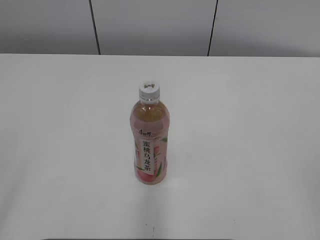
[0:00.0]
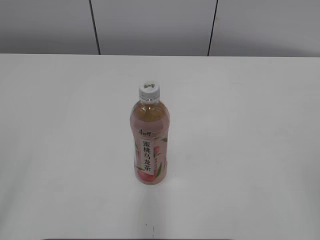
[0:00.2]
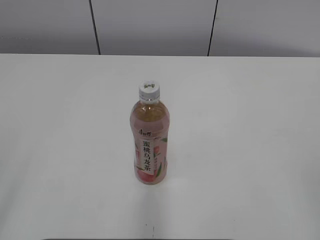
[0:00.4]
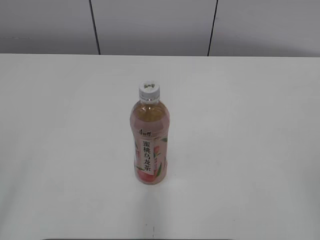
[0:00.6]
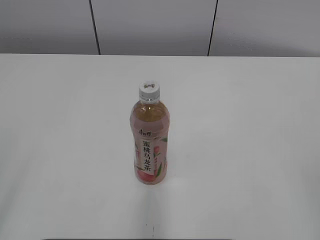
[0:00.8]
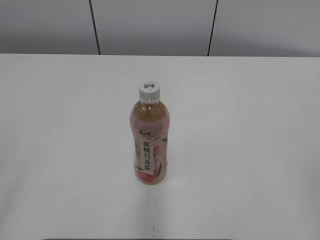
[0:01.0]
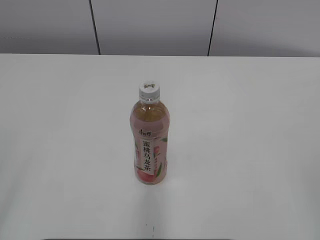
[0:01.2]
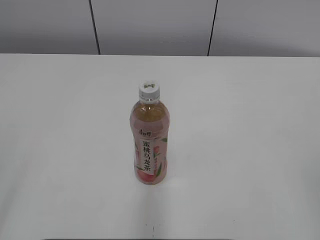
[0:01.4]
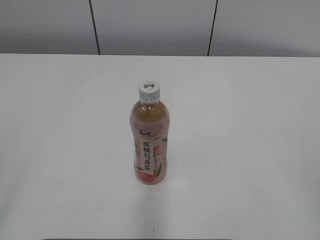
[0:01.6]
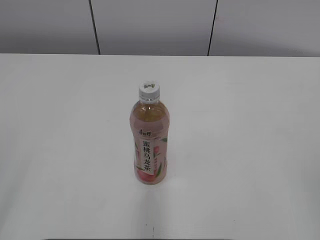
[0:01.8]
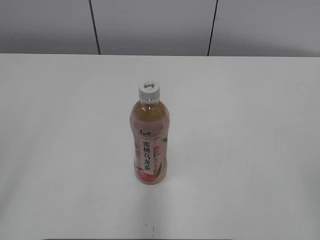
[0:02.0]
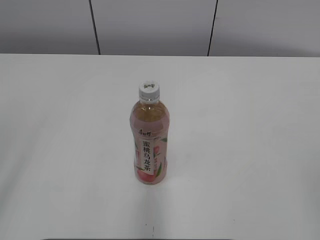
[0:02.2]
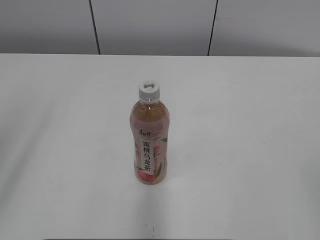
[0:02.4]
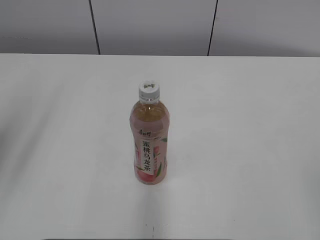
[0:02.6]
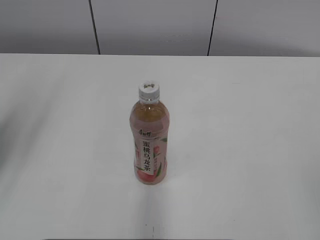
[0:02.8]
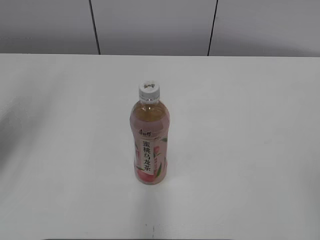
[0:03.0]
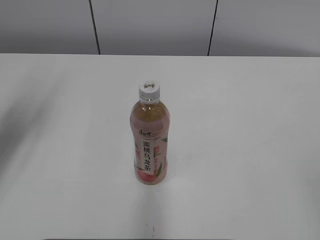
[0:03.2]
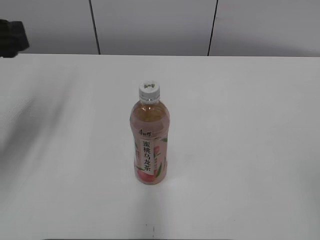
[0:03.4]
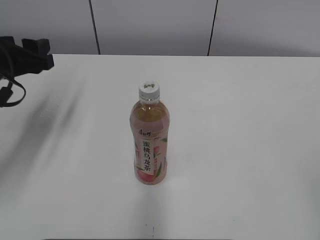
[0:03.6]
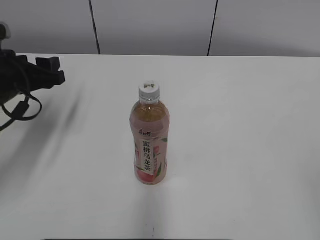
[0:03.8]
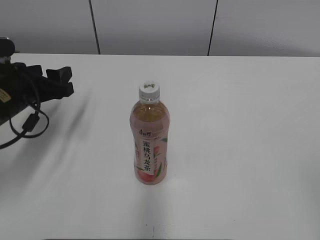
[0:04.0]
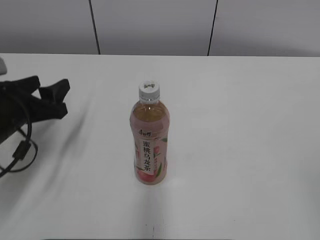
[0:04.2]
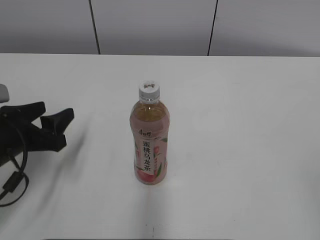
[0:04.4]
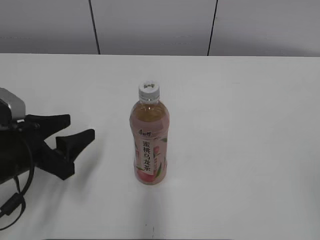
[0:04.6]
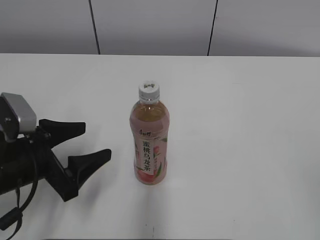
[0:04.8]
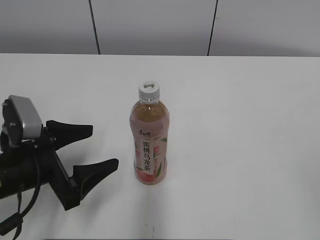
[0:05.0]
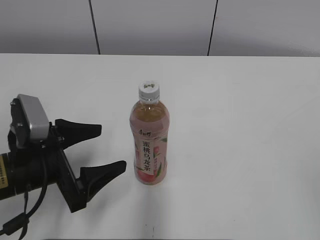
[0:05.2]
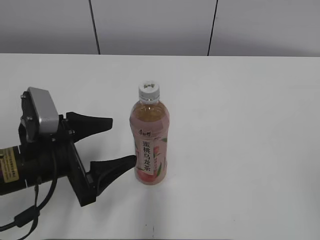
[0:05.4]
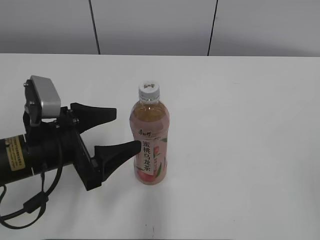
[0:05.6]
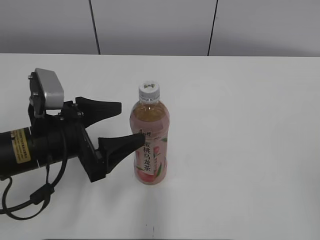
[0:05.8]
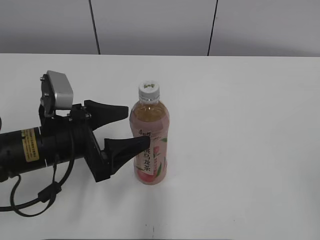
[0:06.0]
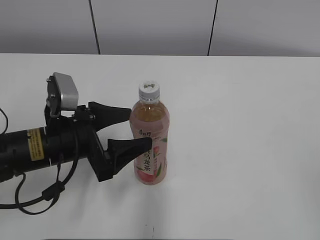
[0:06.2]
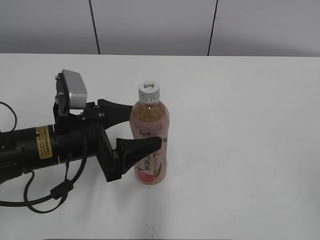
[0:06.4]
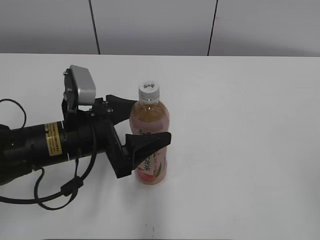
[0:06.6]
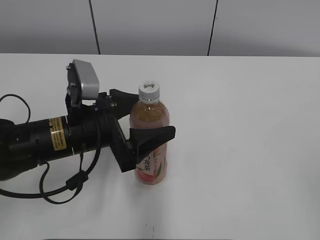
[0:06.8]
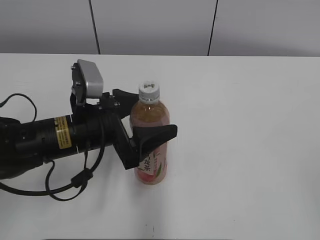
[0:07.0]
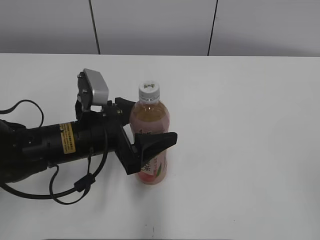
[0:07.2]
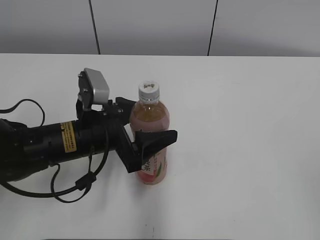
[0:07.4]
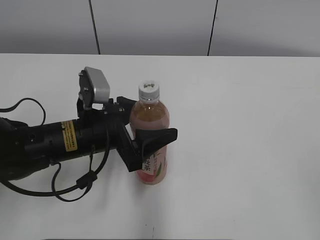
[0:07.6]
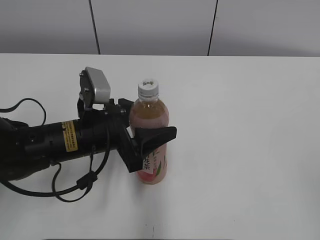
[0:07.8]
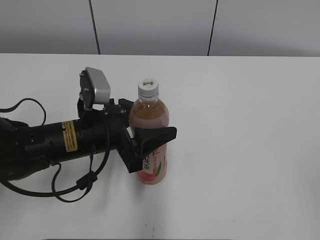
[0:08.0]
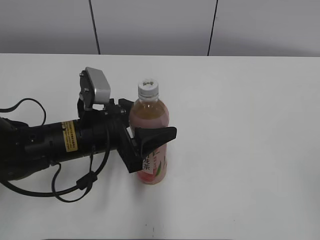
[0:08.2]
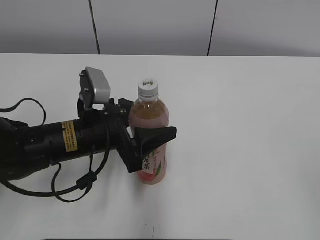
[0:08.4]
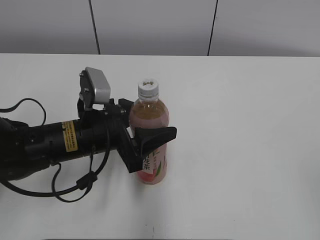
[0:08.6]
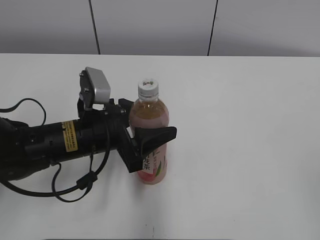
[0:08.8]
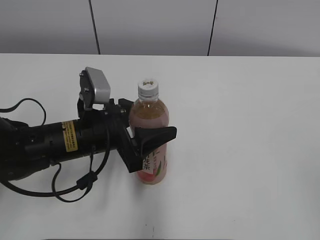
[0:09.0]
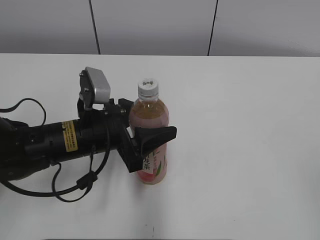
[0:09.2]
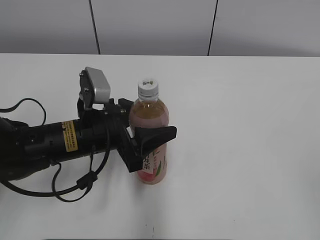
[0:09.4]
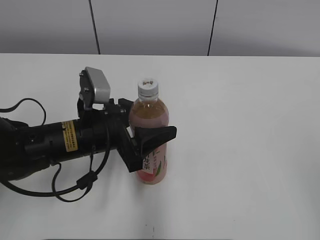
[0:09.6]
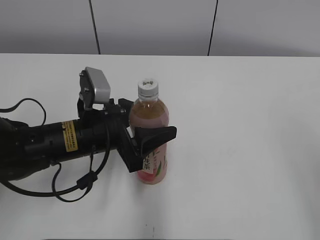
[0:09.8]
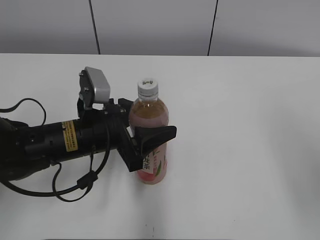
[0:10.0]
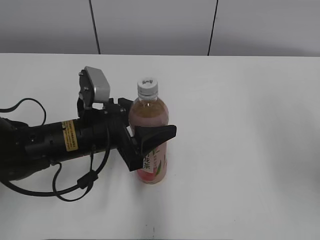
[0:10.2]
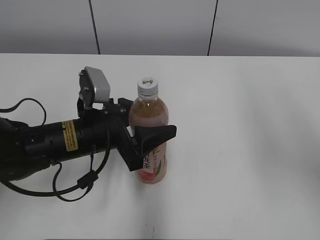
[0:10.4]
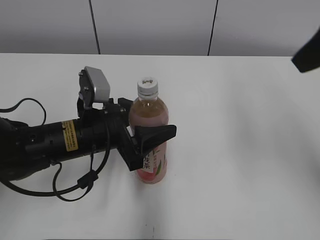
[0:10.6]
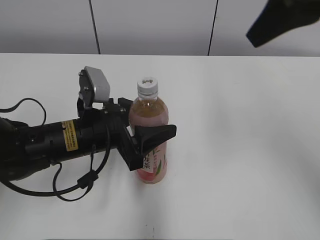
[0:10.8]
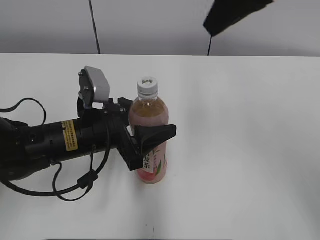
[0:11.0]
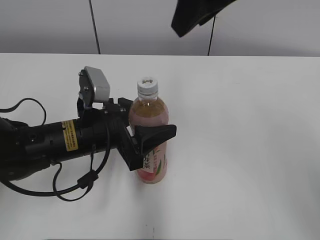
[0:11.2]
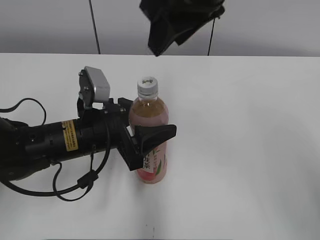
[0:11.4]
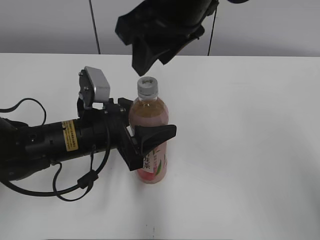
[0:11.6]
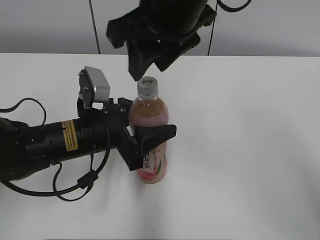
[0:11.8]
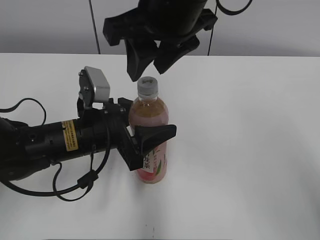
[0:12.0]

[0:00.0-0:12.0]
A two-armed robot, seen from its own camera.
Step, 0:00.0 to 0:07.6: Grab the Peach Oolong Tea with the left hand.
0:01.6 to 0:03.0: The left gripper shifts about 25 cm forward.
0:03.0 to 0:04.4: The left gripper shifts roughly 15 cm downward.
0:04.4 to 0:06.0: The left gripper travels to the right by approximately 10 cm, and opens its fingers.
0:06.0 to 0:07.6: The left gripper shifts by some 5 cm, and closes up.
0:07.6 to 0:09.0: The left gripper closes up.
0:09.0 to 0:10.4: The right gripper travels forward and upward by roughly 20 cm, and closes.
0:10.4 to 0:12.0: The right gripper heads to the left, covering some 25 cm.

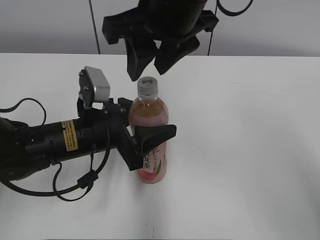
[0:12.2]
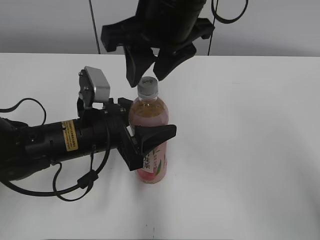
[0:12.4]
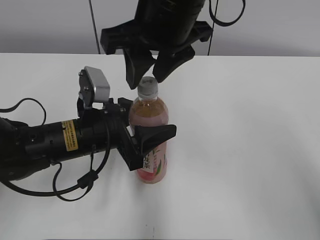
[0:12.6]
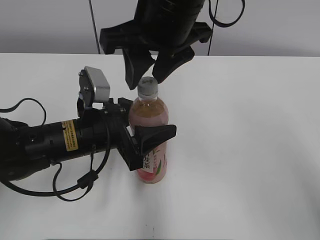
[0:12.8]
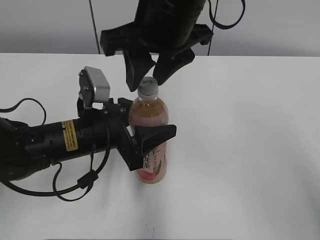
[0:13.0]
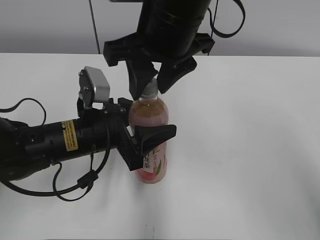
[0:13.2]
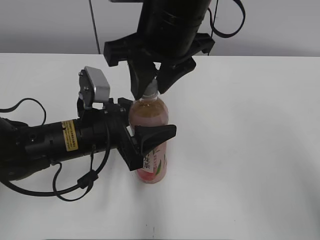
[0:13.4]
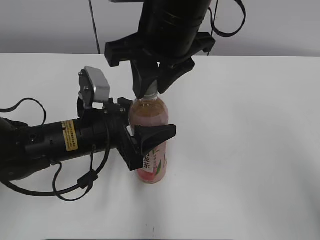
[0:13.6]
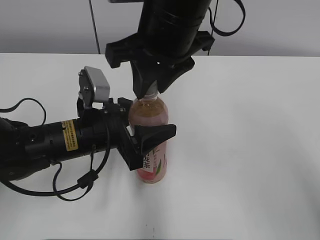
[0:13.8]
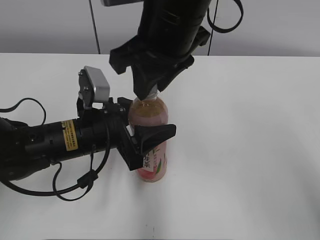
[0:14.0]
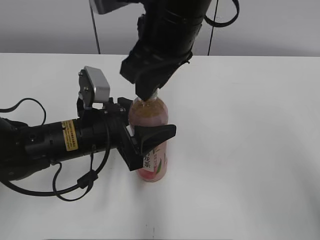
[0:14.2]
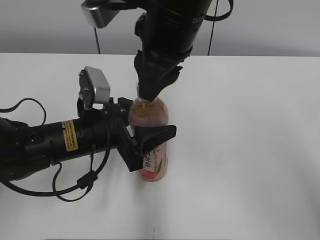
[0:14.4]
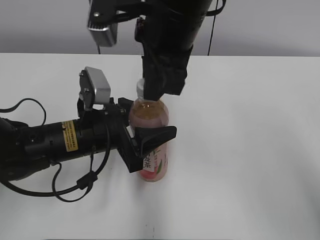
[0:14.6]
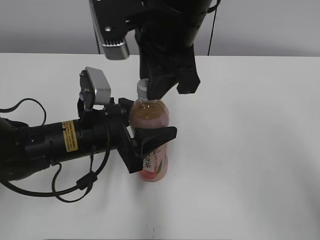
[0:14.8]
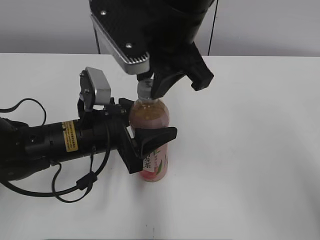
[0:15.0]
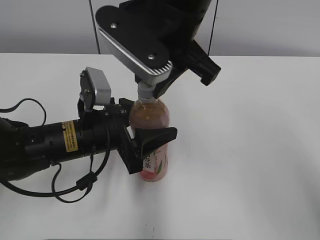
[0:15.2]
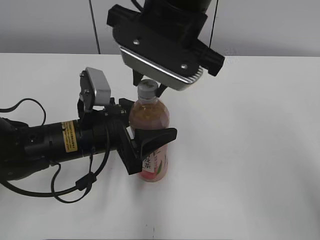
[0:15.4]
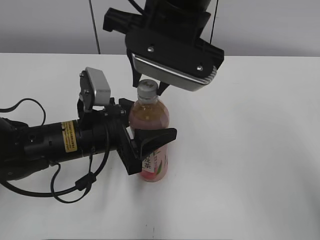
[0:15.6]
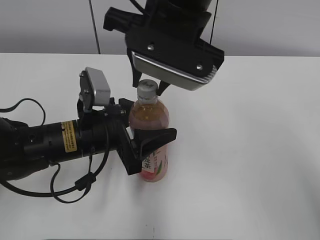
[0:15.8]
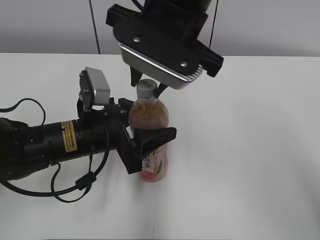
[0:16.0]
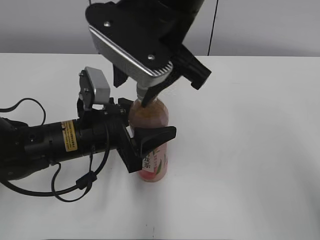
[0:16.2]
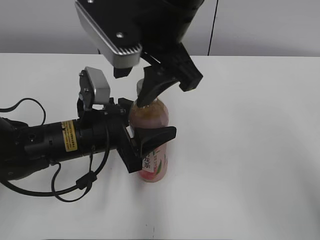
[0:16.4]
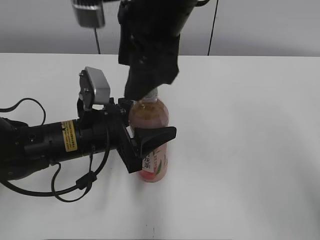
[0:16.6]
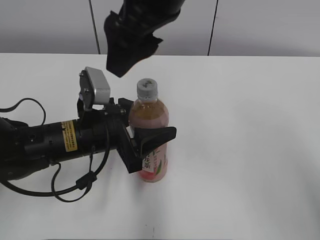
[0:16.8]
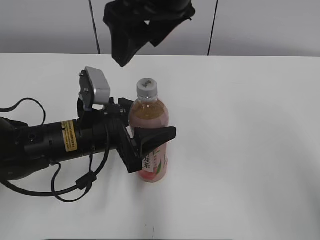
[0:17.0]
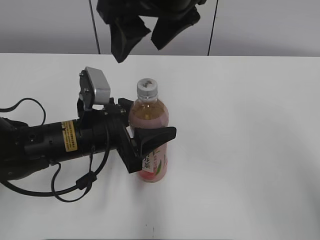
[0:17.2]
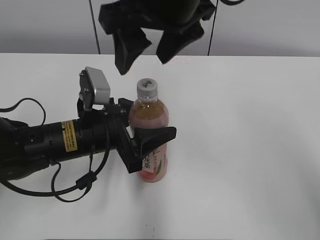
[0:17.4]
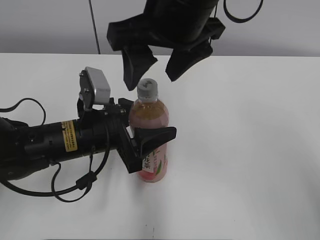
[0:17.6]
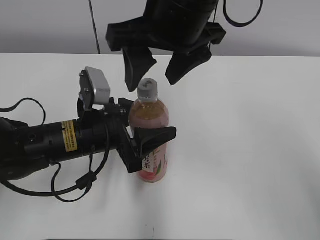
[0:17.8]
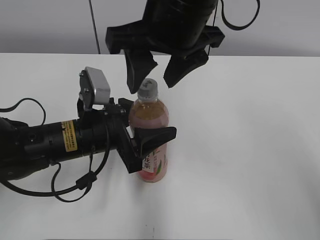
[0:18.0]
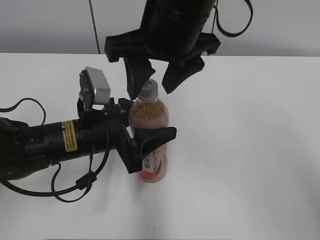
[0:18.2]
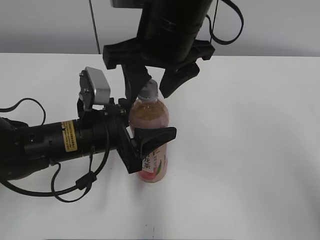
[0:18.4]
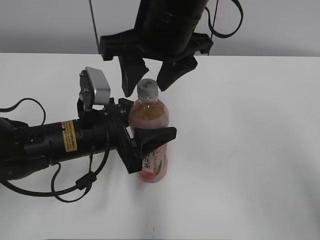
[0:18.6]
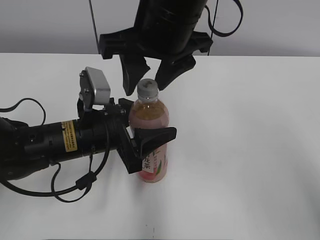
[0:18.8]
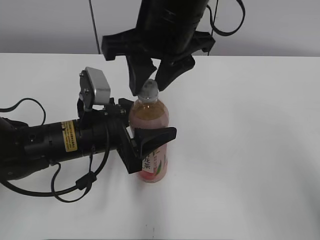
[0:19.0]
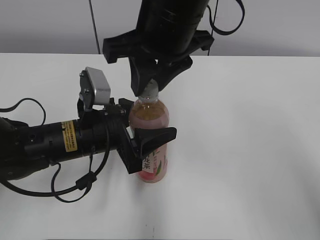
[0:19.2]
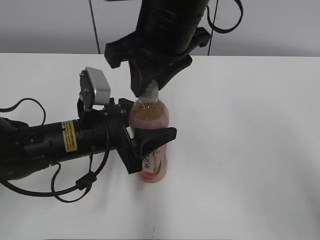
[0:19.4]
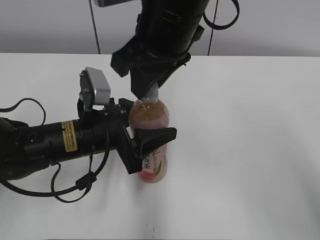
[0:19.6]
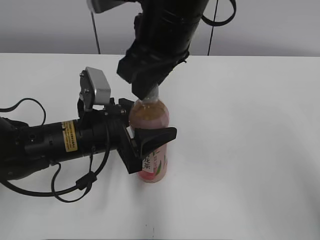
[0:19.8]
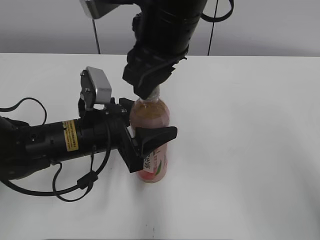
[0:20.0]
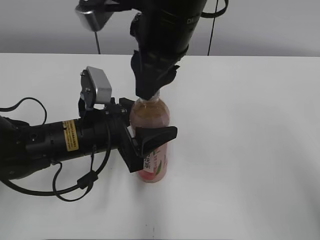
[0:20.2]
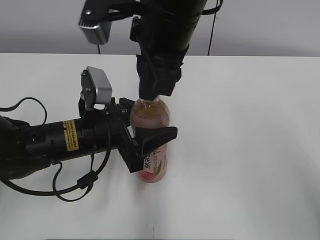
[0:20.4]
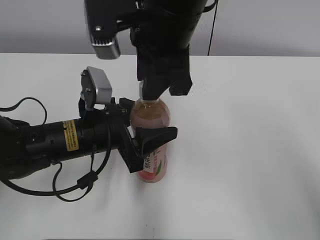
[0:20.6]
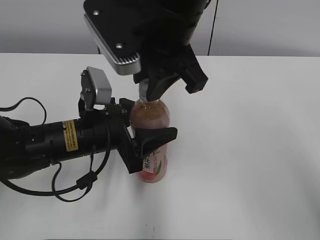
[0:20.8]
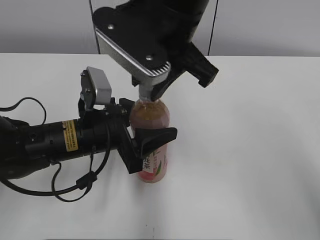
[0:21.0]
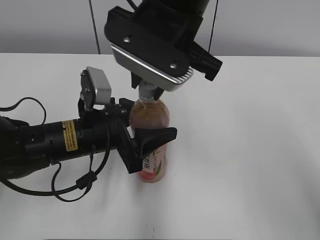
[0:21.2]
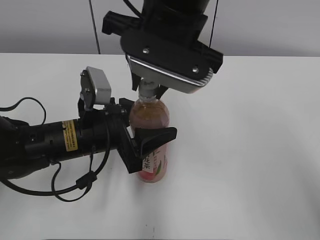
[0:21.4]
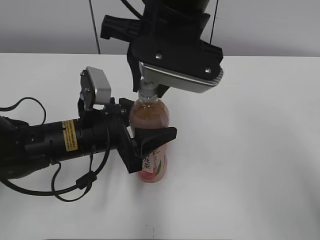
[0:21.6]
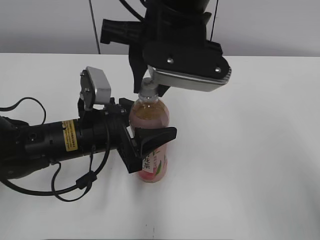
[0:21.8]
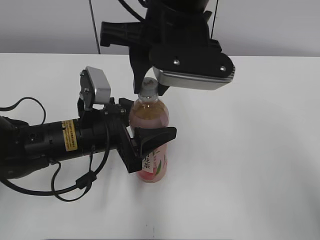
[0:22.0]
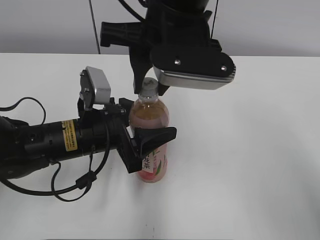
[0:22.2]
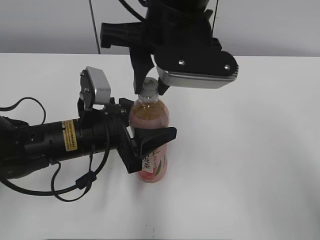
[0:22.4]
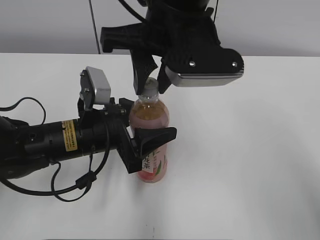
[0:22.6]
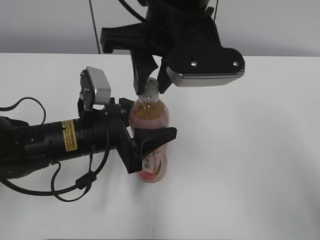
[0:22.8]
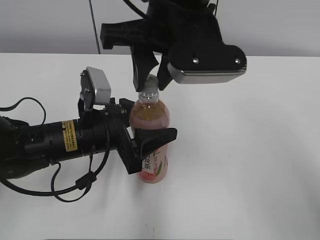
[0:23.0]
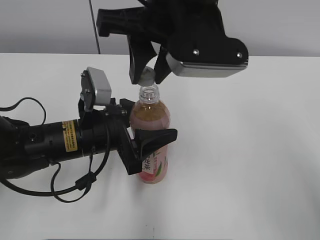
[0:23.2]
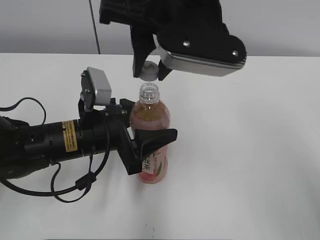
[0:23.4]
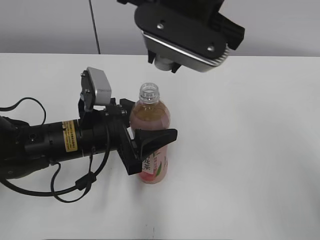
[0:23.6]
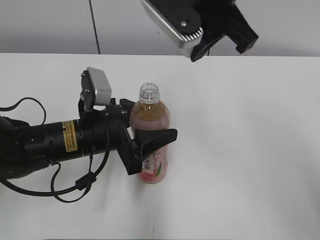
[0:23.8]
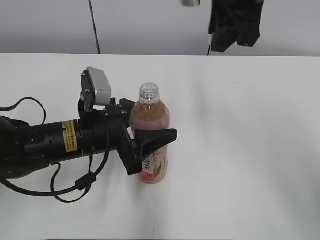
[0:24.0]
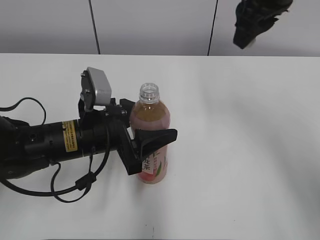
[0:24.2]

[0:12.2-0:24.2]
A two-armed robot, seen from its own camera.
0:12.2 to 0:13.8: There are only small adjustments of the grippers.
0:15.2 to 0:16.6: The right gripper opens.
0:18.2 to 0:19.8: The right gripper closes up.
0:22.6 to 0:24.2: The right gripper heads to the right and forward, covering some 15 cm.
